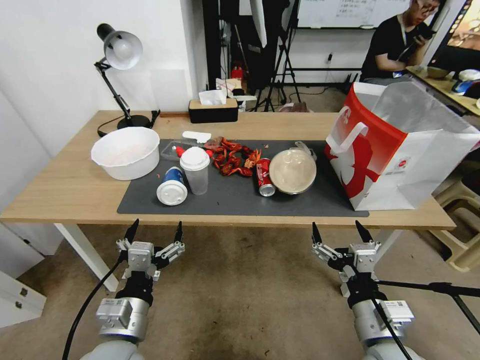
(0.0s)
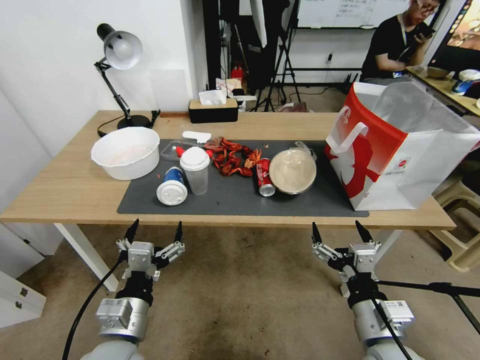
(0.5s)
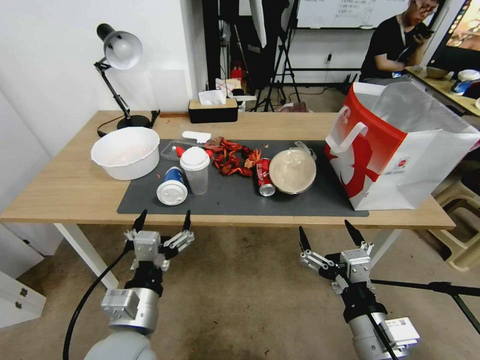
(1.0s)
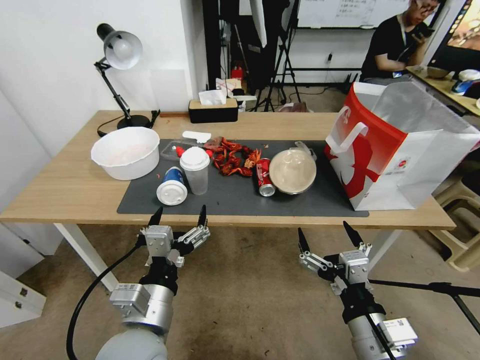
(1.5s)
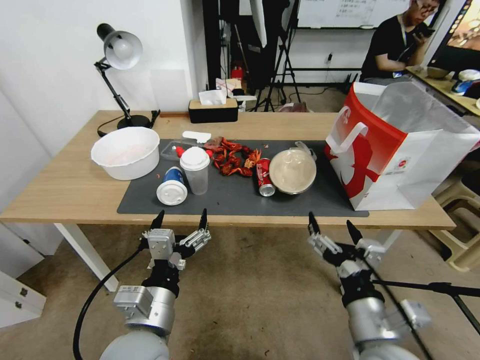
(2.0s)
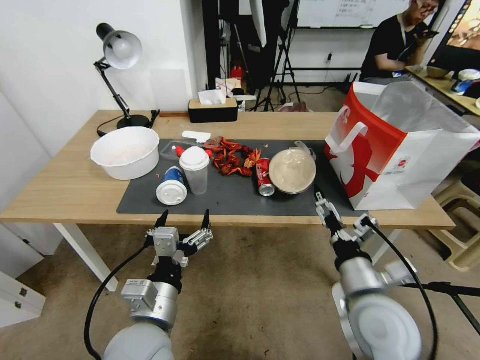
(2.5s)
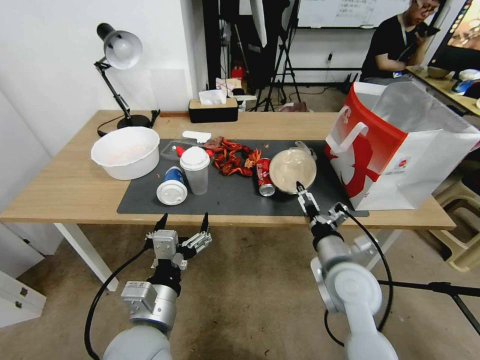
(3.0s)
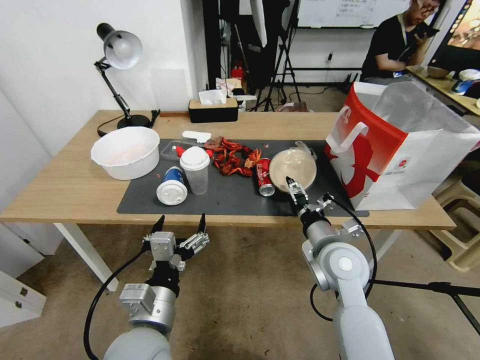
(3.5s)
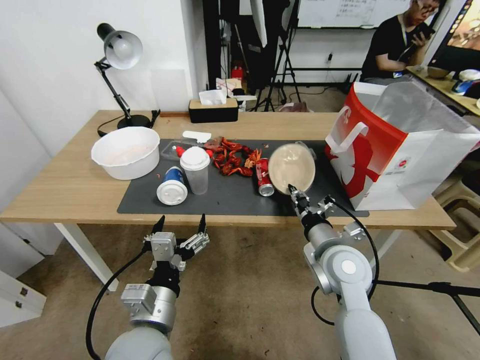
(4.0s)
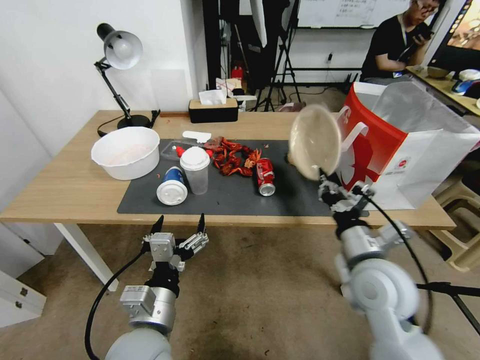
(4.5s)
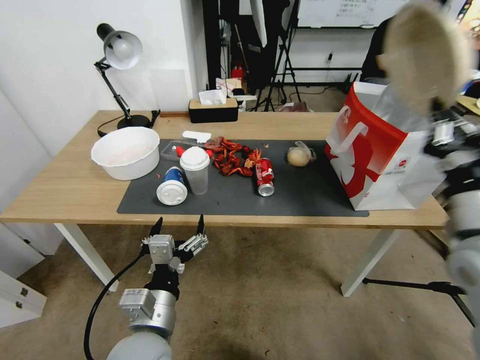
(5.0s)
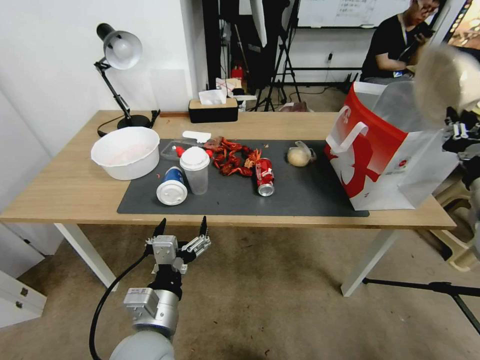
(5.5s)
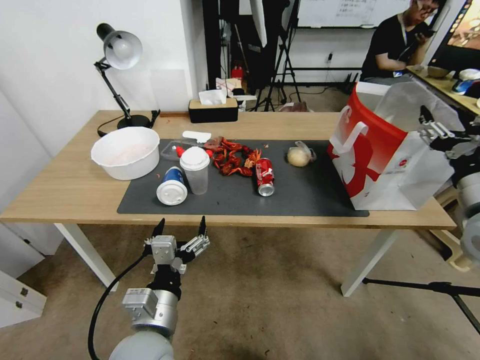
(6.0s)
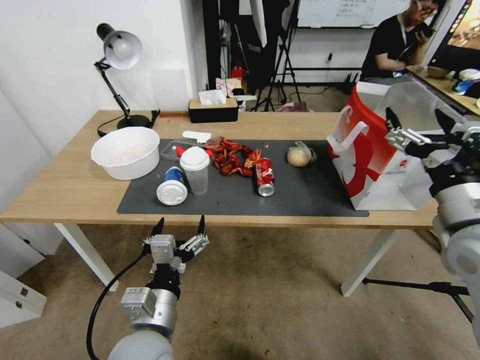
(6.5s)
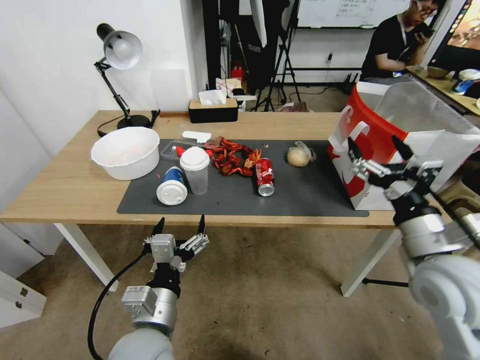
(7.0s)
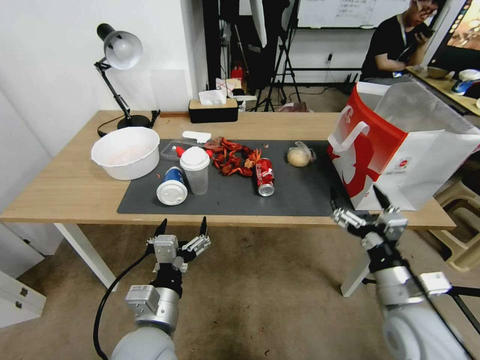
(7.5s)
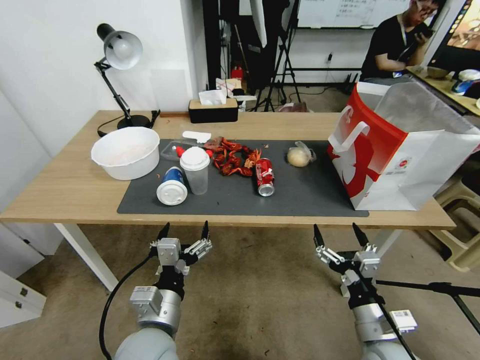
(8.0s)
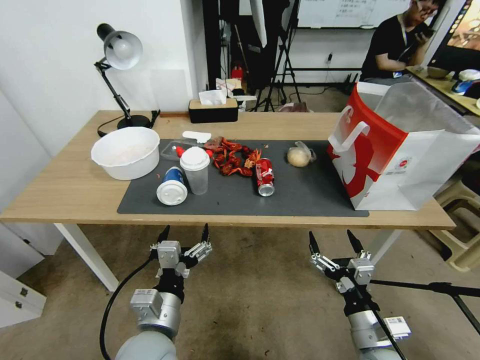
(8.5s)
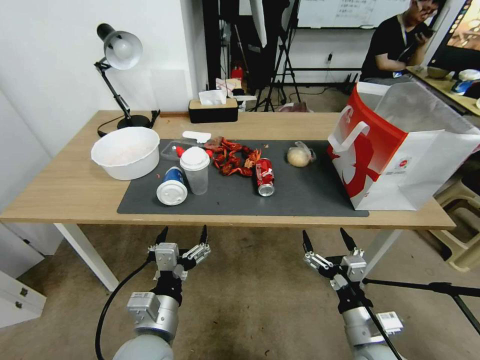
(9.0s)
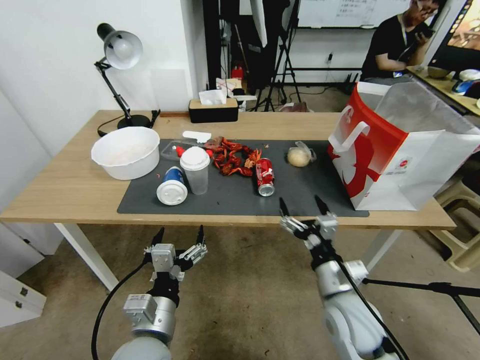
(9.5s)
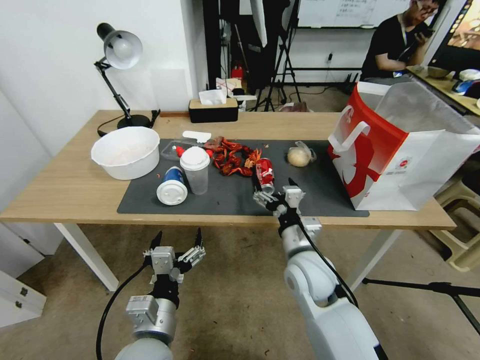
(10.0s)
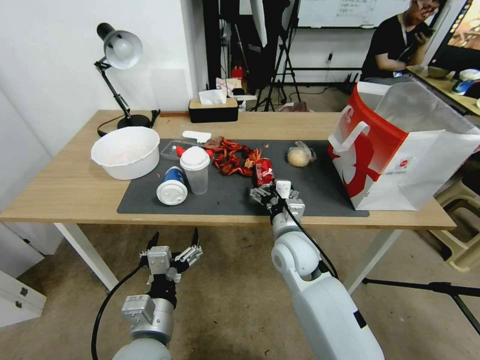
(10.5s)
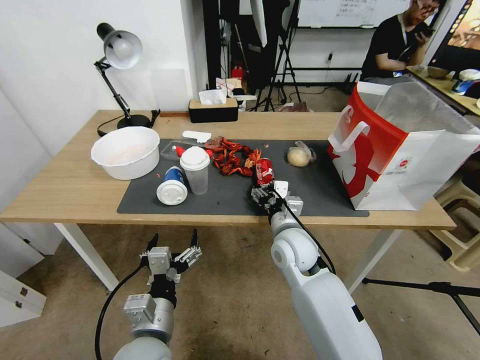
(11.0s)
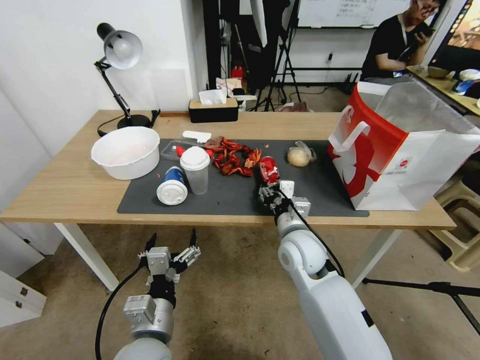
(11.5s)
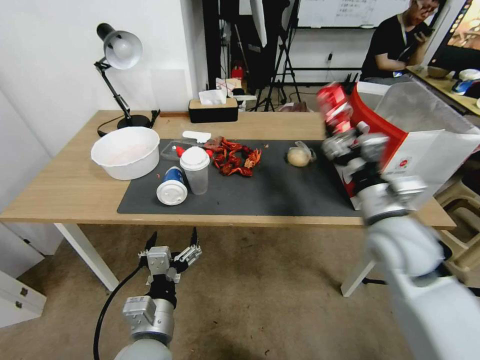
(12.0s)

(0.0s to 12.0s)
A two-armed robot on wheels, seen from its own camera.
2.0s - 4.0s: The right gripper shifts roughly 15 cm forward, and closes.
4.0s - 6.0s: The right gripper moves to the right and upward, some 25 cm, and opens.
6.0s - 8.0s: The right gripper moves downward, backward and to the left, approximately 30 cm.
8.0s - 10.0s: The right gripper shifts approximately 20 cm forward and to the left.
10.0s - 12.0s: The right gripper heads upward and to the right, covering roughly 20 cm, and closes up.

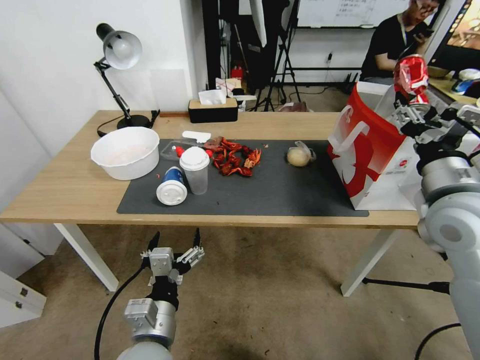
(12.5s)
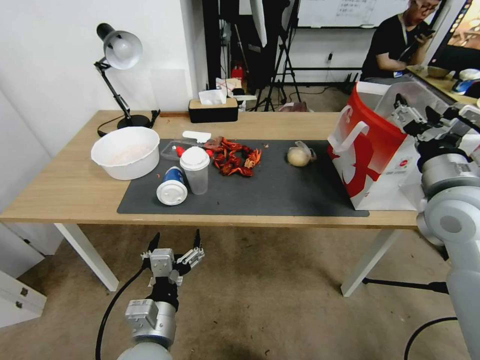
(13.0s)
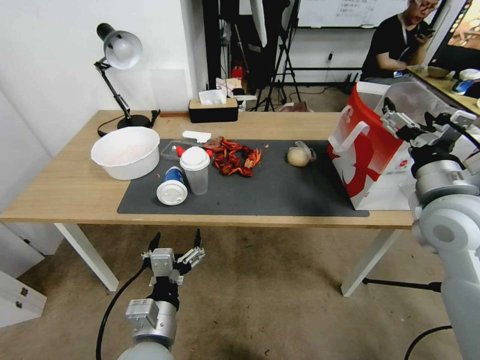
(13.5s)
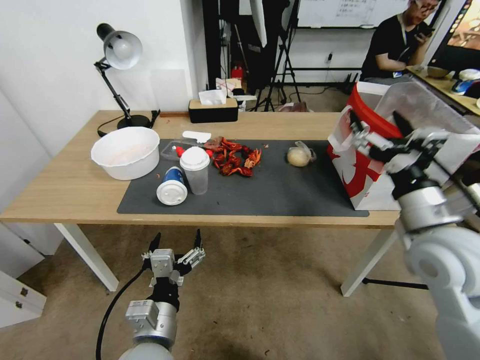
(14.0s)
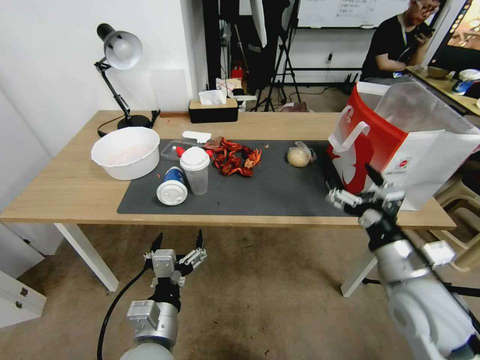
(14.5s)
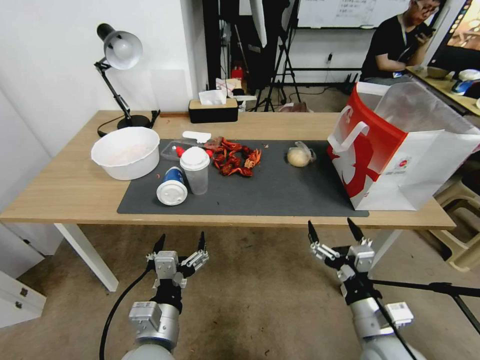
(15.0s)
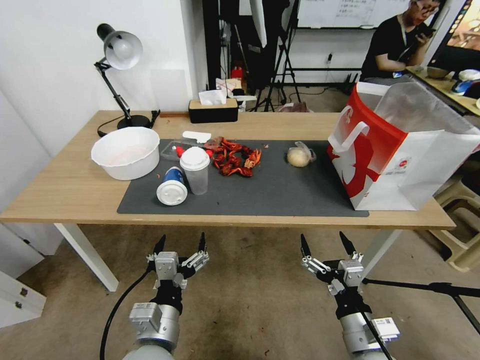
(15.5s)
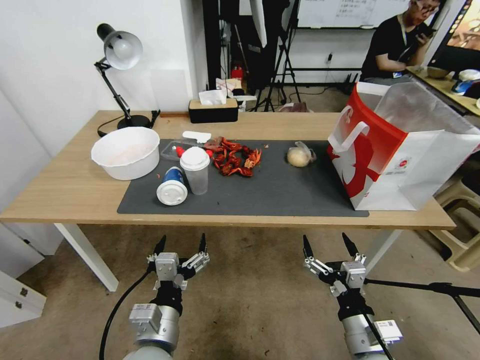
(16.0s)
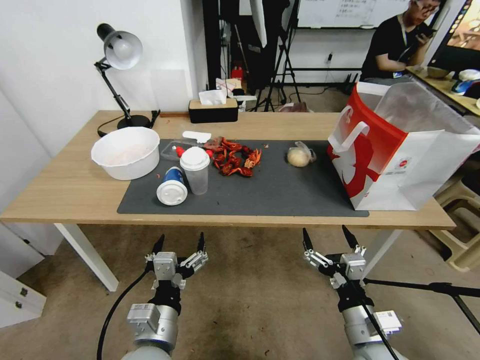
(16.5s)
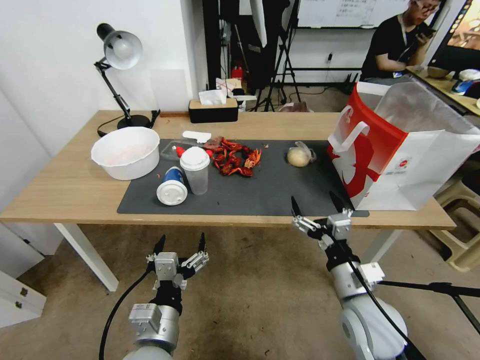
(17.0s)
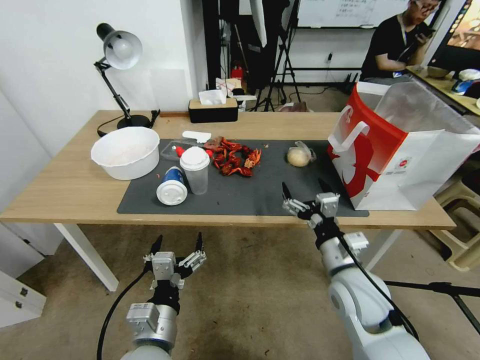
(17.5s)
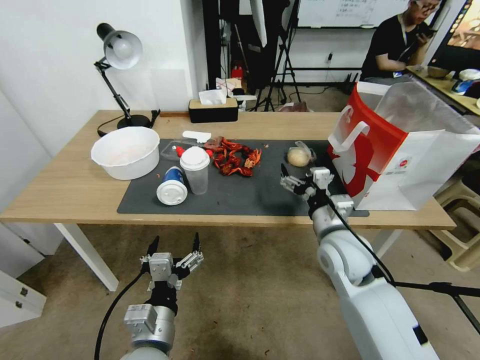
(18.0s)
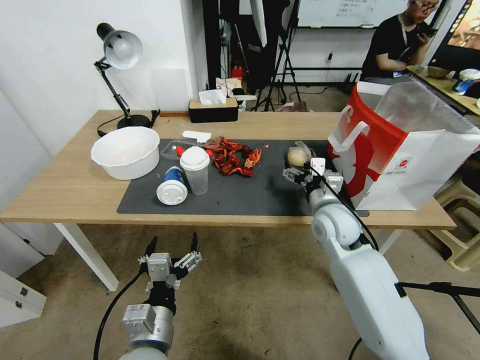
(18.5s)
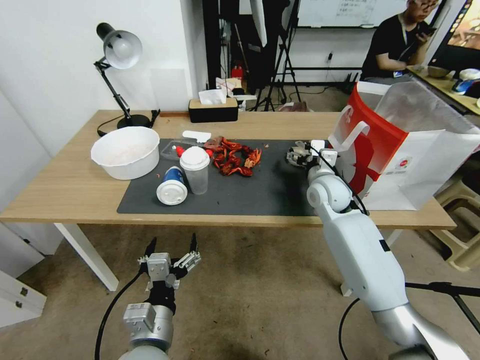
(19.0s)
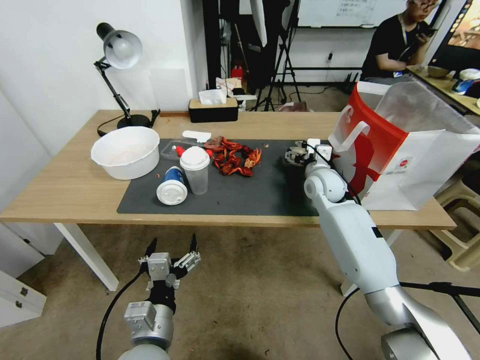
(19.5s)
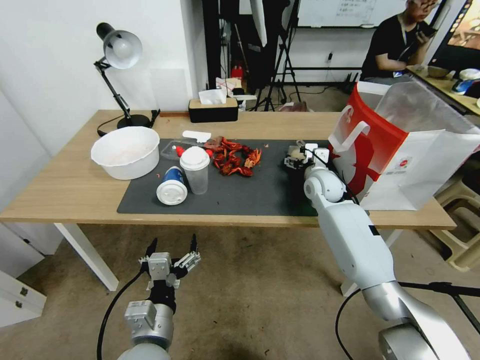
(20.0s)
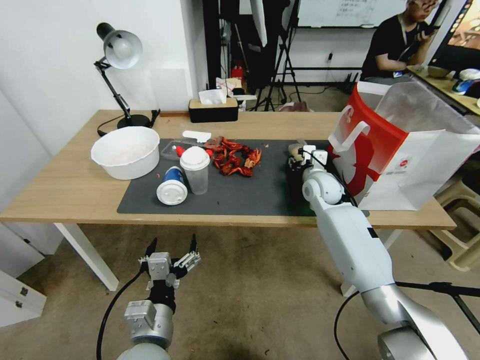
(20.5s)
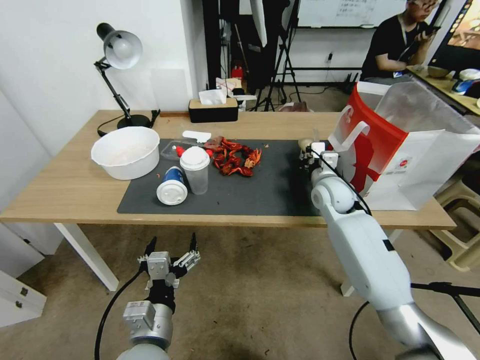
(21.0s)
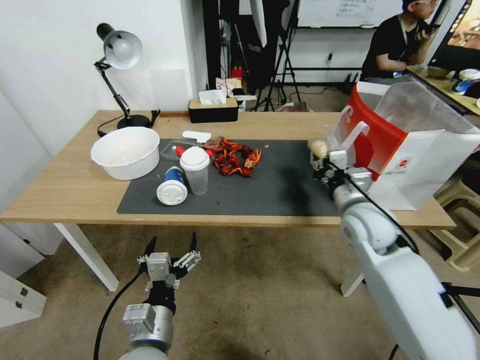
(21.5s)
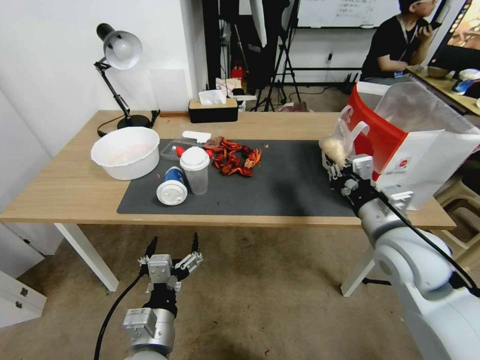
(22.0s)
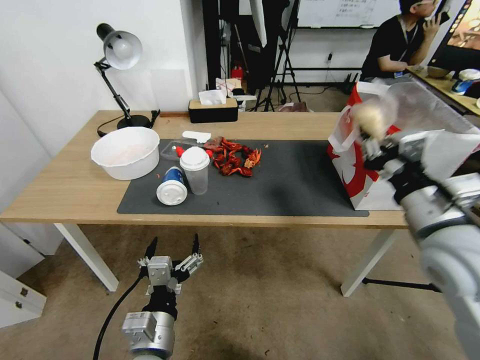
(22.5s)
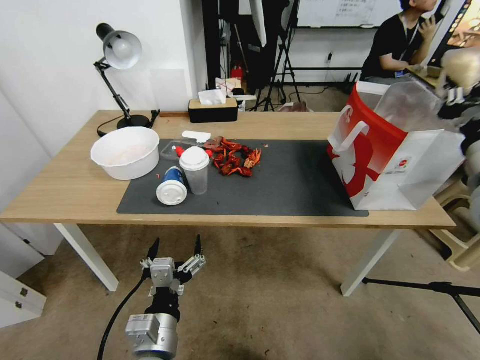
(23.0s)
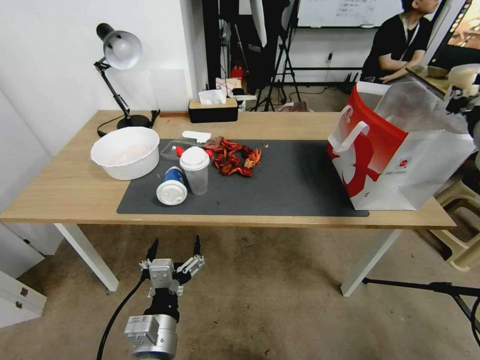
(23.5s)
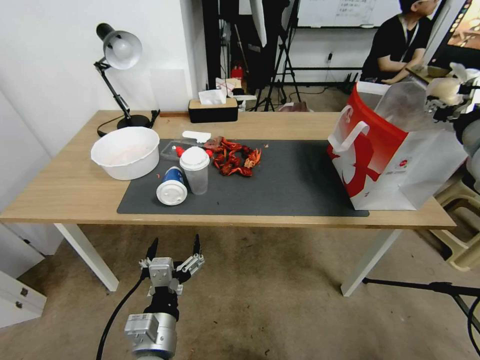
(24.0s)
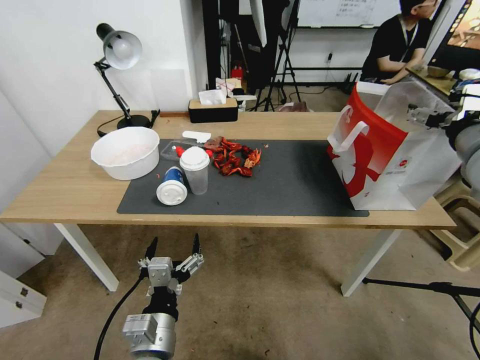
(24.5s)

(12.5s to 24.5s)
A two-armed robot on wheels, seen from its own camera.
12.5s - 14.5s: The right gripper goes approximately 15 cm downward and backward, and opens.
14.5s - 16.5s: The right gripper goes approximately 15 cm downward and backward.
16.5s - 18.5s: The right gripper moves forward, approximately 25 cm.
18.5s - 20.5s: The right gripper travels forward by about 10 cm, and closes.
20.5s - 22.5s: The right gripper shifts approximately 30 cm backward and upward, and closes.
22.5s - 24.5s: The right gripper goes some 15 cm forward, to the right and upward, and opens its fingers.

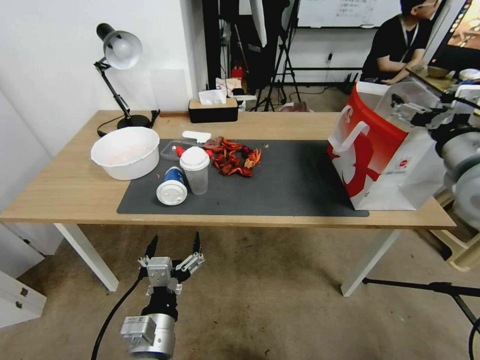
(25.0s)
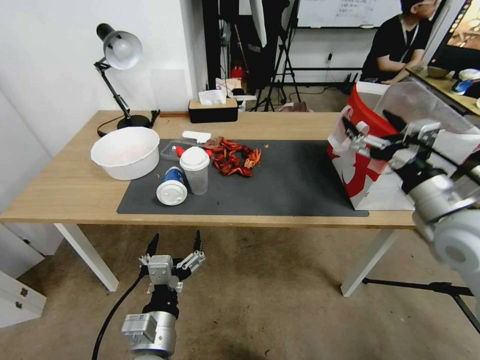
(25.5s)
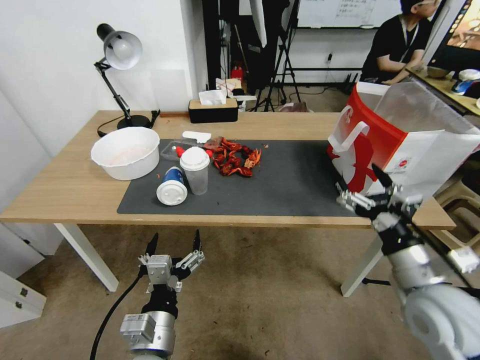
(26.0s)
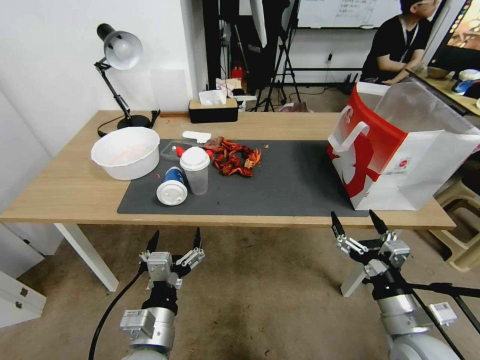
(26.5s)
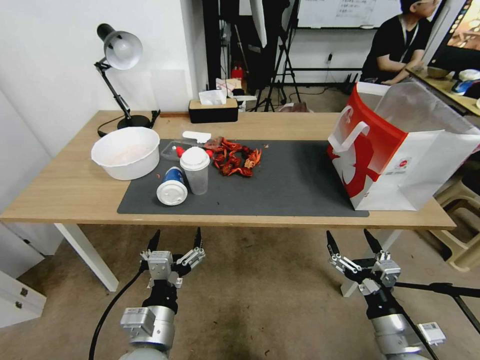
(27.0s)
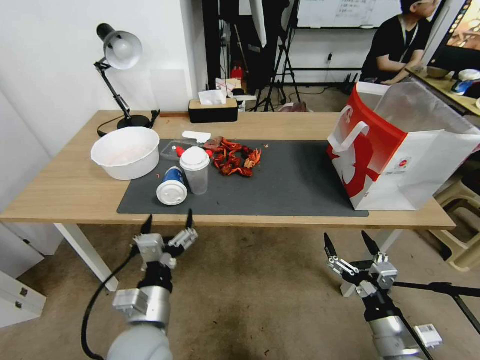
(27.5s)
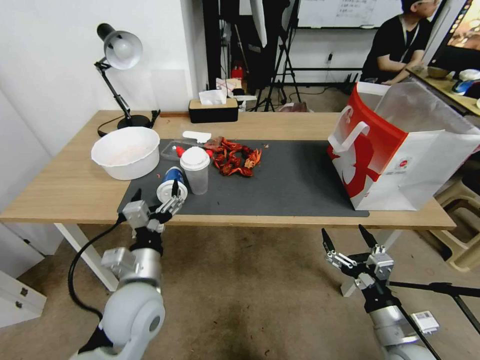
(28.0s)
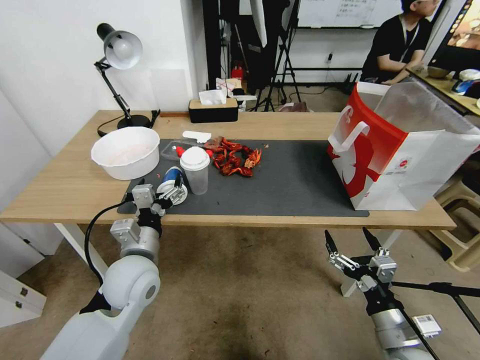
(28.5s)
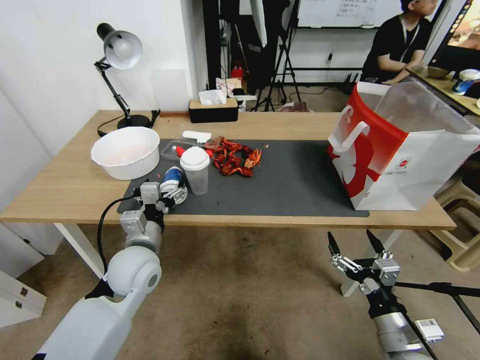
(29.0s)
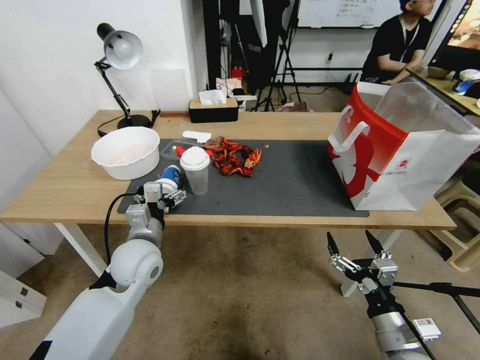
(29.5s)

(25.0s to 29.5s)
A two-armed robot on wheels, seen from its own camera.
25.0s - 27.0s: The right gripper is displaced downward and backward by about 35 cm.
27.0s - 29.5s: The left gripper shifts some 20 cm forward.
